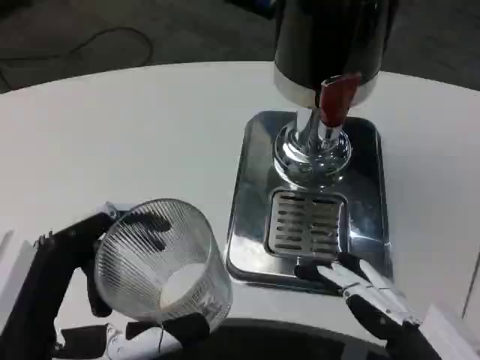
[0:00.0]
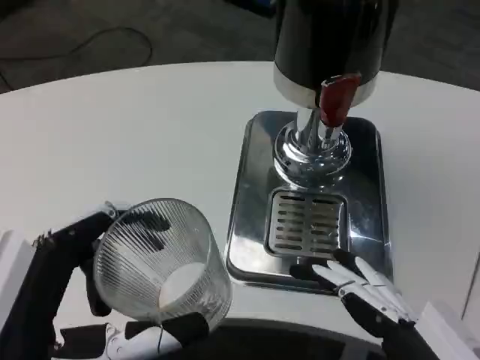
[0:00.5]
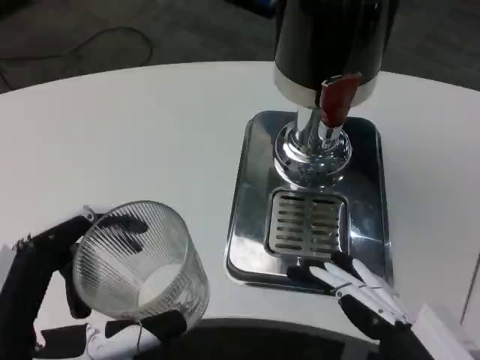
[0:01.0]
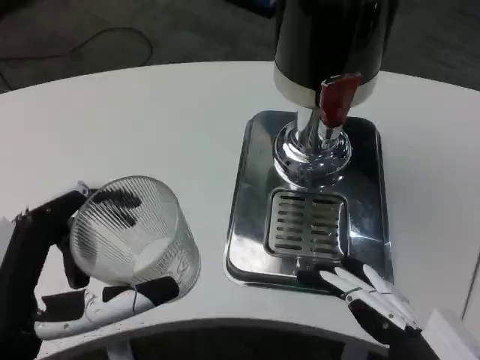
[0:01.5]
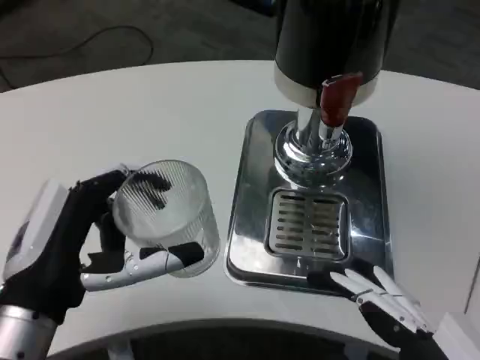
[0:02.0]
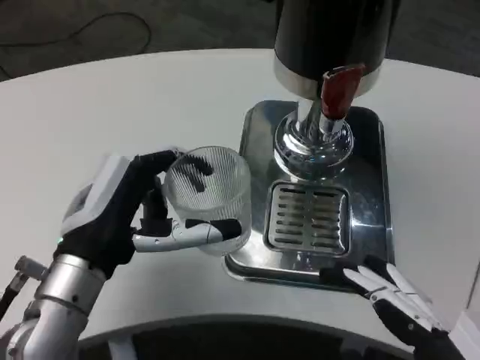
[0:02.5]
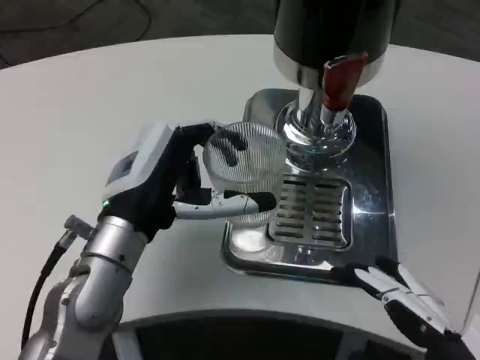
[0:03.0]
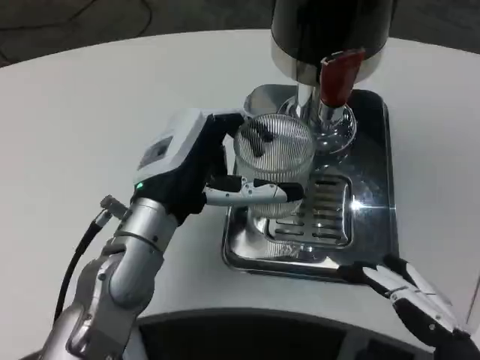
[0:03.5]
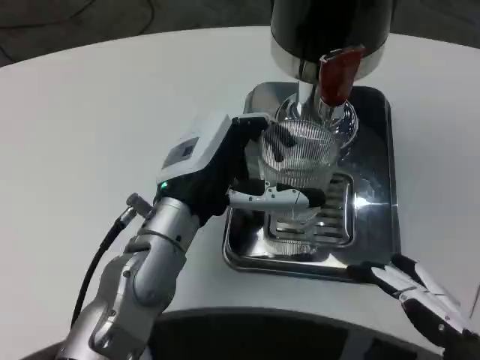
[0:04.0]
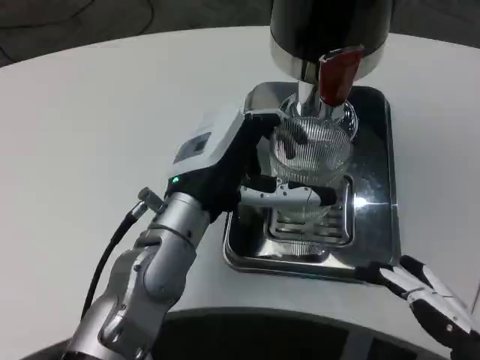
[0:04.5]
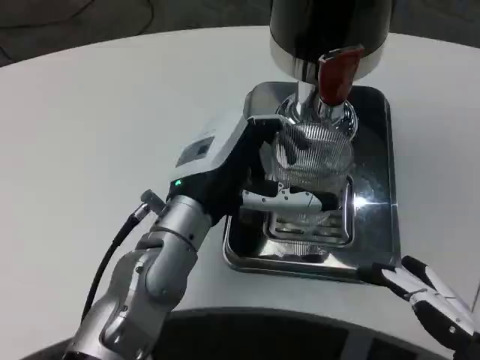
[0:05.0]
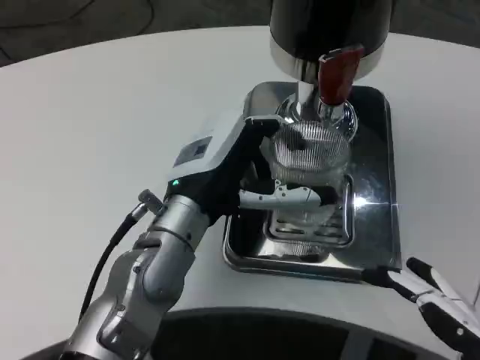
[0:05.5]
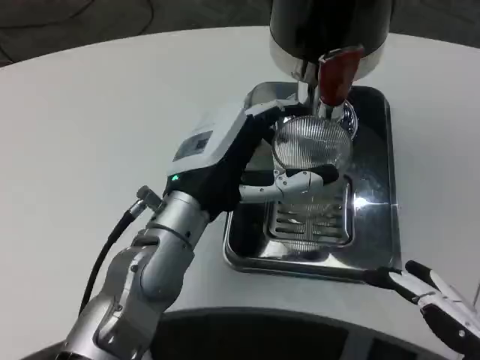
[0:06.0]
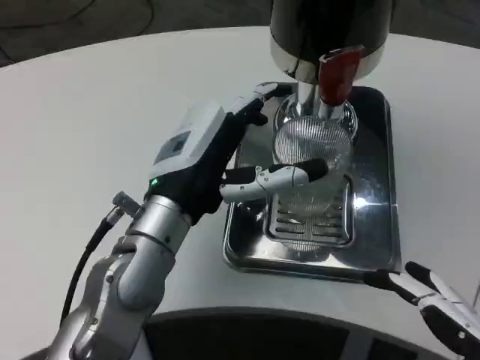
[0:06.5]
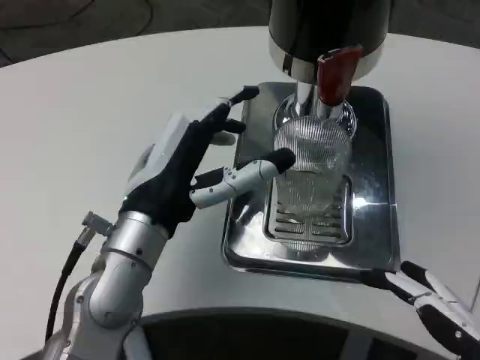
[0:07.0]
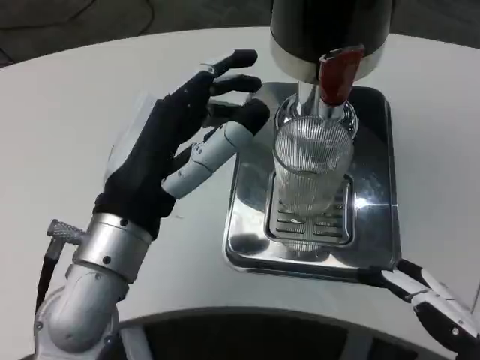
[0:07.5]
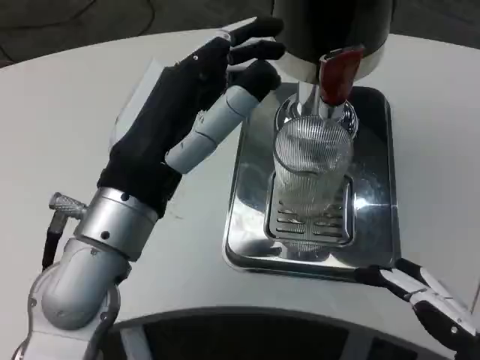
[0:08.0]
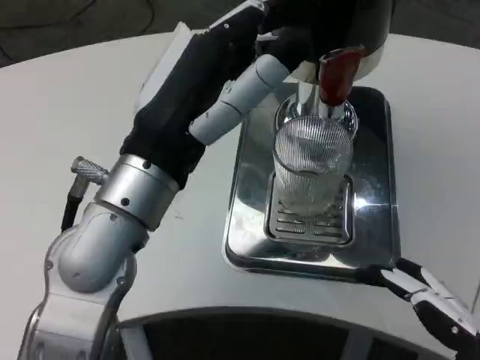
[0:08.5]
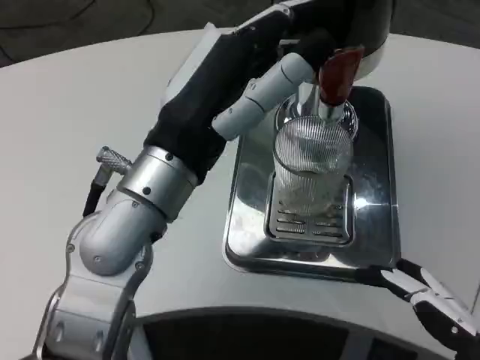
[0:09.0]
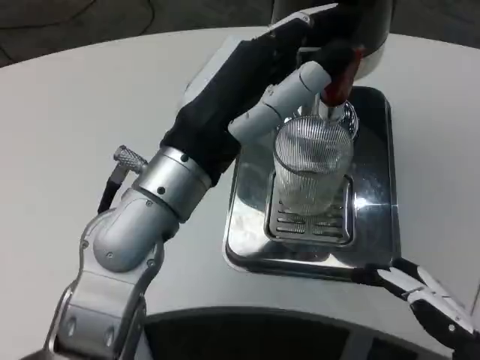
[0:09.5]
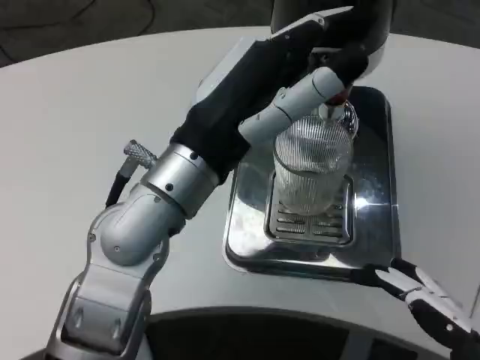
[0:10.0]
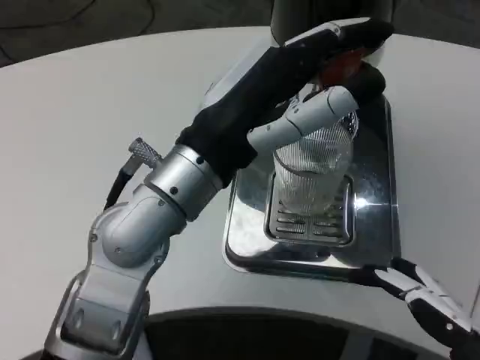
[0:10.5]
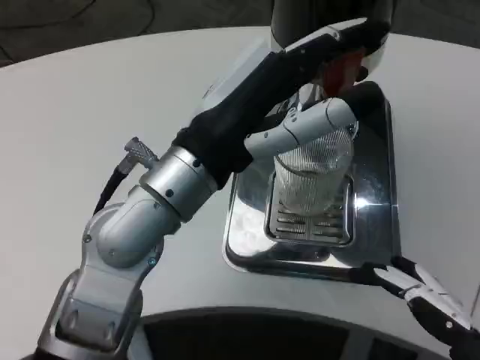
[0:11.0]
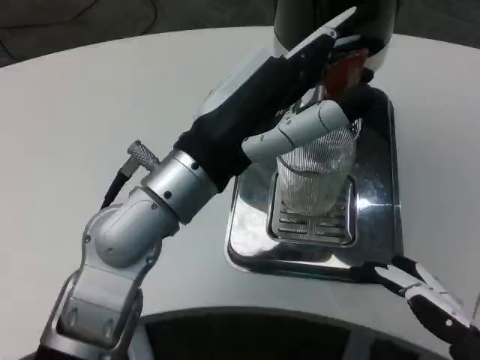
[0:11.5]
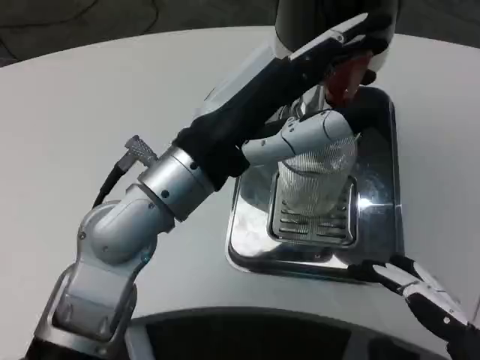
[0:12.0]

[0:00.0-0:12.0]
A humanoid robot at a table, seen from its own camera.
Task of the whole recording: Grasp the cup under the faucet to collect the drink, then remove the cup.
0:00.0 to 0:02.0: The left hand goes approximately 10 cm forward.
0:02.0 to 0:04.0: The left hand is displaced forward and to the right by roughly 15 cm.
0:04.0 to 0:06.0: The two hands keep their place.
0:06.0 to 0:08.0: The left hand shifts about 5 cm backward.
0:08.0 to 0:10.0: The left hand ends up roughly 5 cm from where it was.

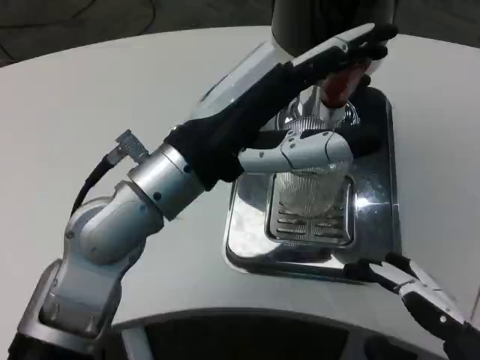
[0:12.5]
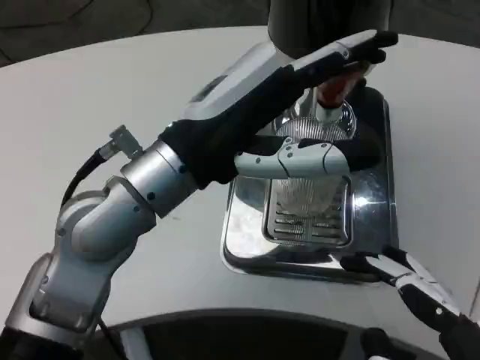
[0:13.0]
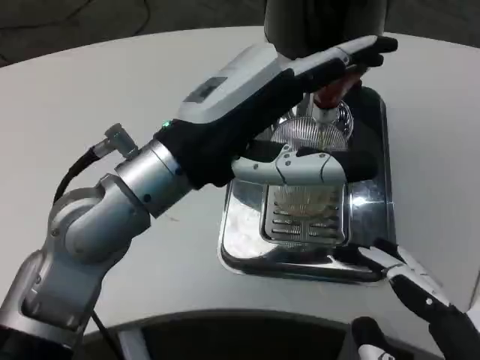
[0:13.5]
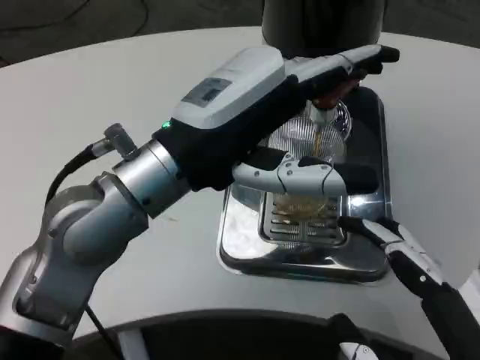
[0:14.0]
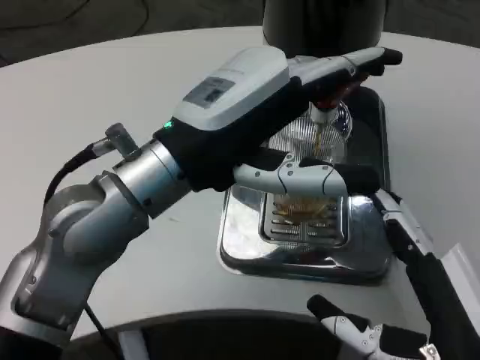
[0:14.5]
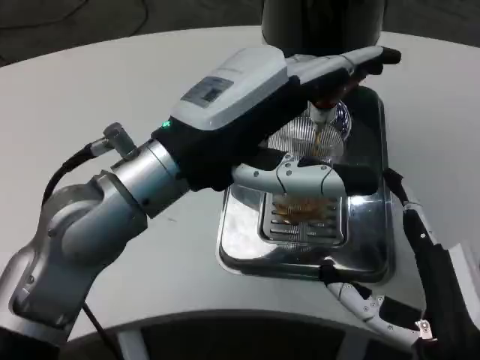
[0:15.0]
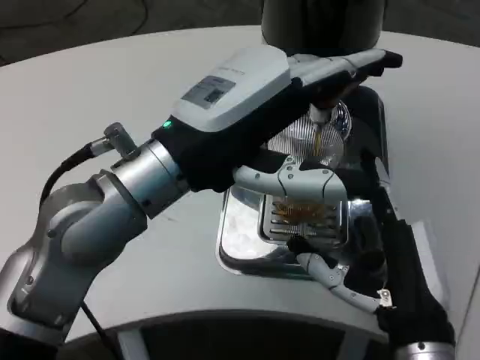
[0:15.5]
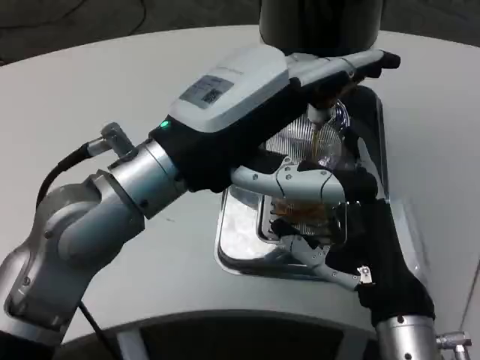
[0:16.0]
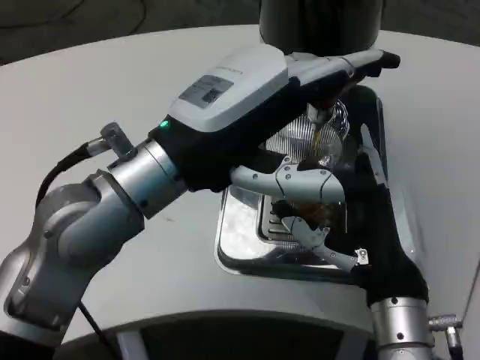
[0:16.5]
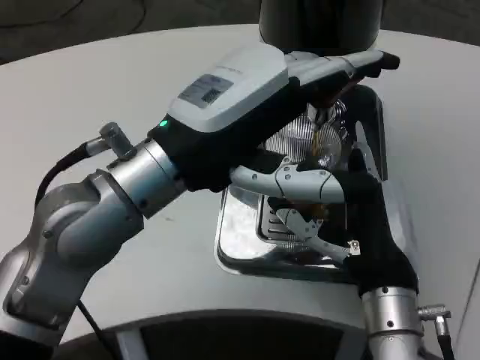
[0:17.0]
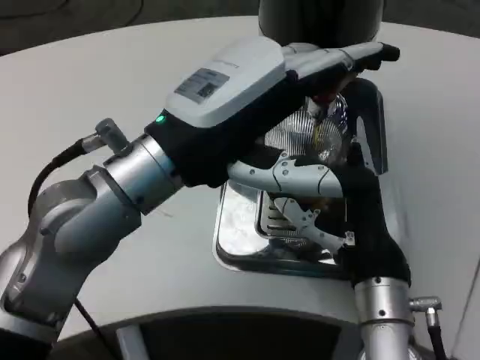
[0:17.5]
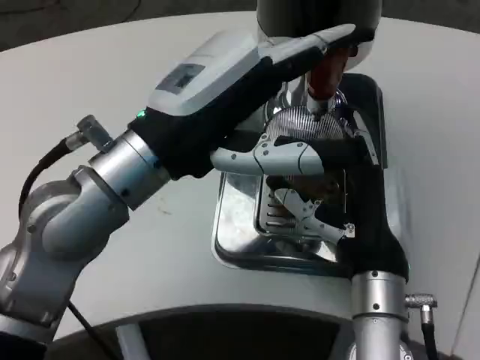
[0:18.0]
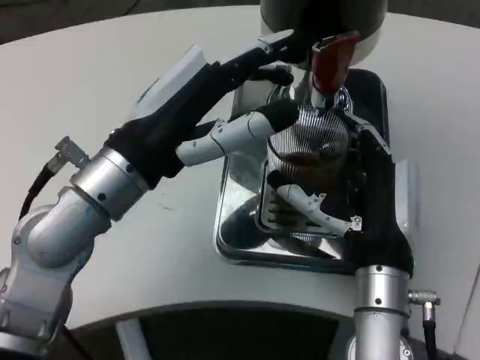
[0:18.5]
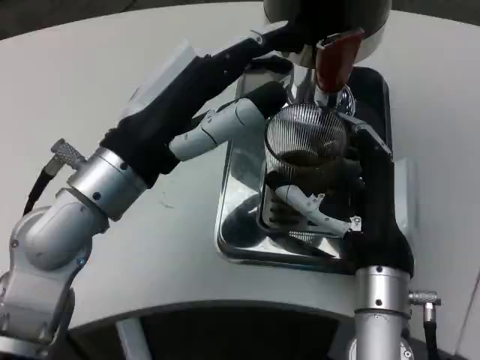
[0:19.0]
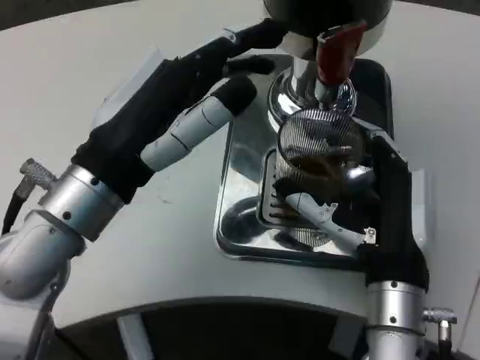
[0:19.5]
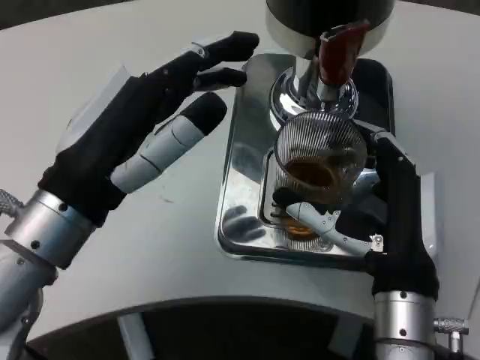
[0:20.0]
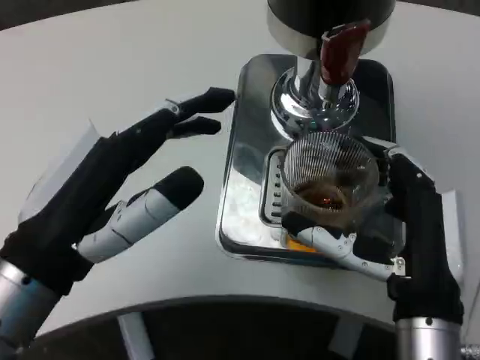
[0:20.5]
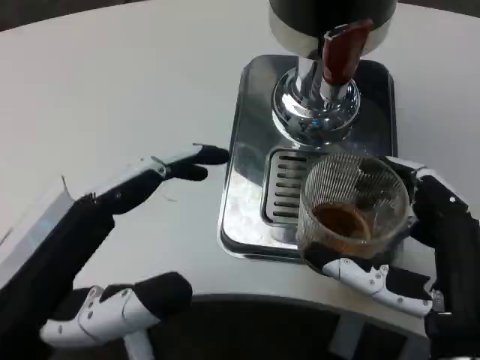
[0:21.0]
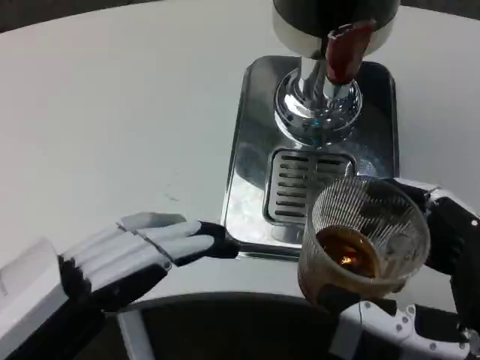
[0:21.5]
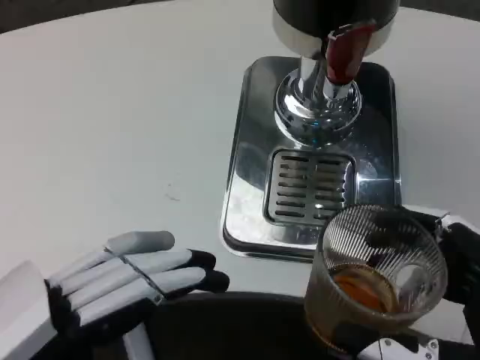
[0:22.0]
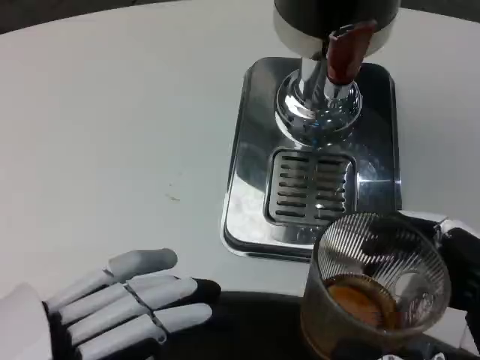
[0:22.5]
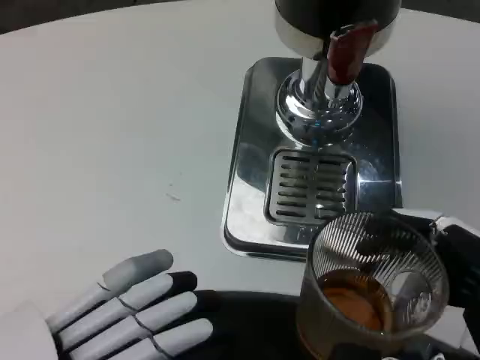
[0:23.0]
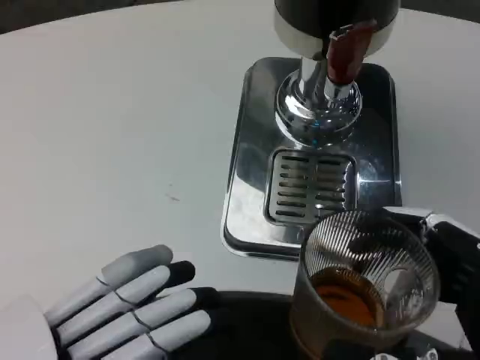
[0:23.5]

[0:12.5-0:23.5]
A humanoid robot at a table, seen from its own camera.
Task of the whole recording: Grasp the cup under the faucet to collect the drink, then remove the cup.
0:12.5 to 0:14.5: The right hand moves forward, some 5 cm.
0:14.5 to 0:16.0: The right hand travels forward and to the left by some 10 cm.
0:18.0 to 0:20.0: The left hand changes place by some 5 cm.
0:20.0 to 0:21.5: The left hand is displaced backward and to the left by some 15 cm; the right hand travels backward and to the right by about 10 cm.
